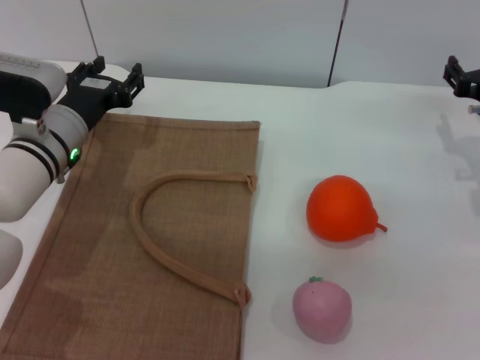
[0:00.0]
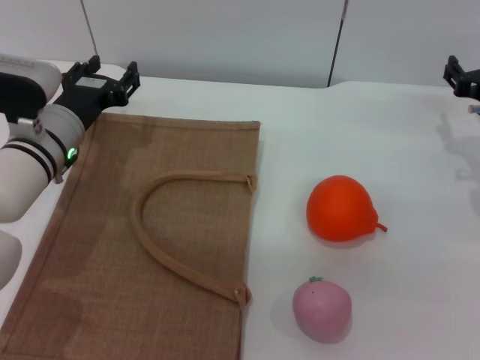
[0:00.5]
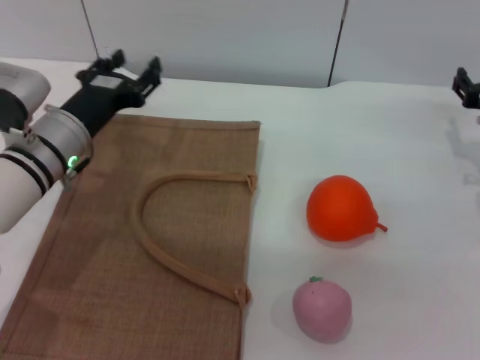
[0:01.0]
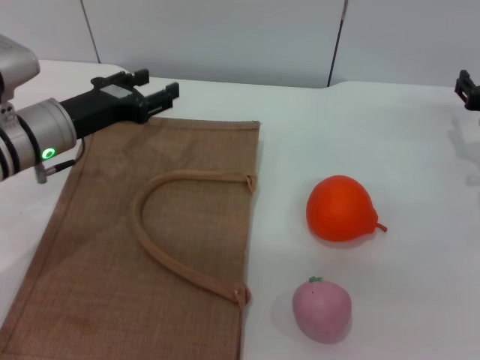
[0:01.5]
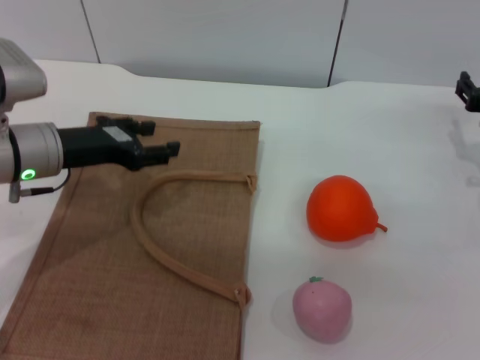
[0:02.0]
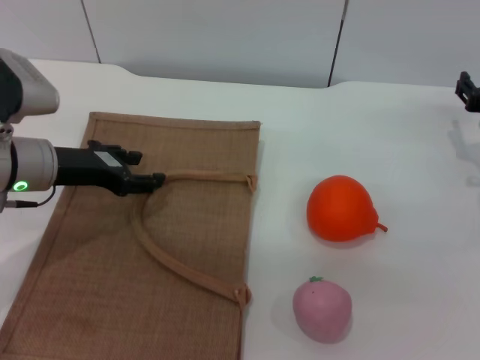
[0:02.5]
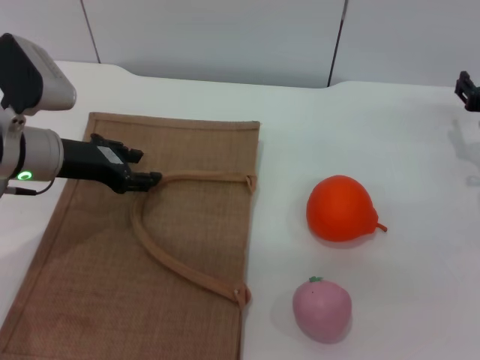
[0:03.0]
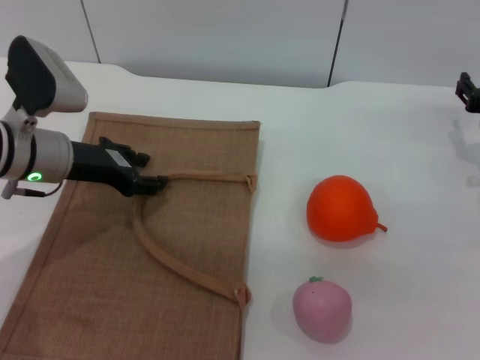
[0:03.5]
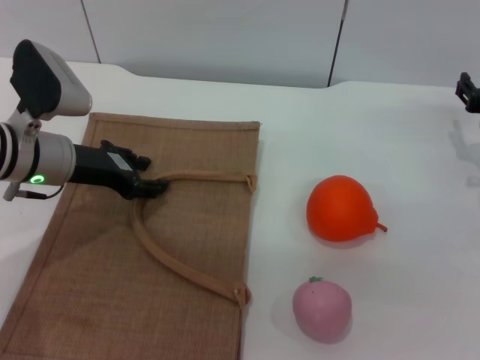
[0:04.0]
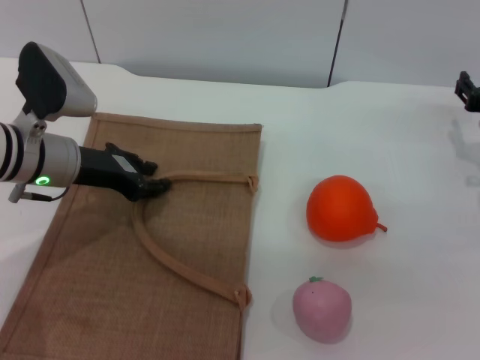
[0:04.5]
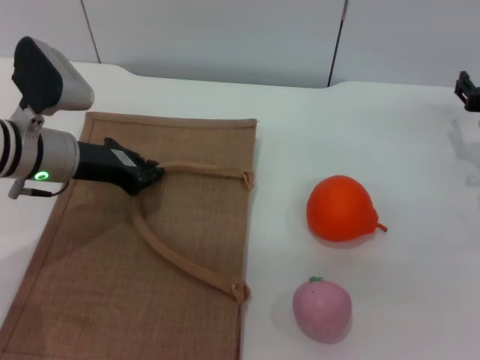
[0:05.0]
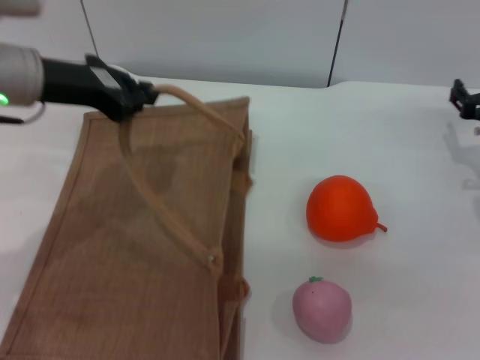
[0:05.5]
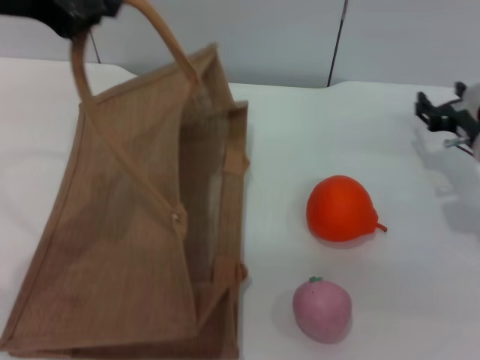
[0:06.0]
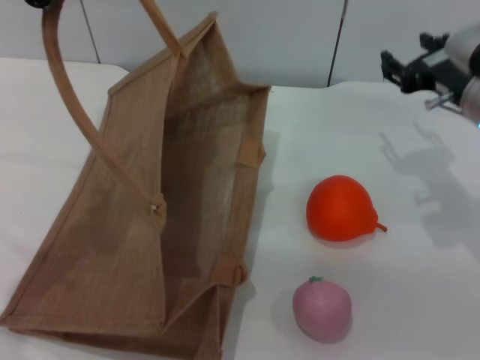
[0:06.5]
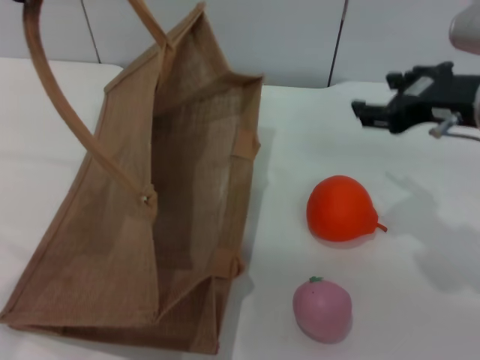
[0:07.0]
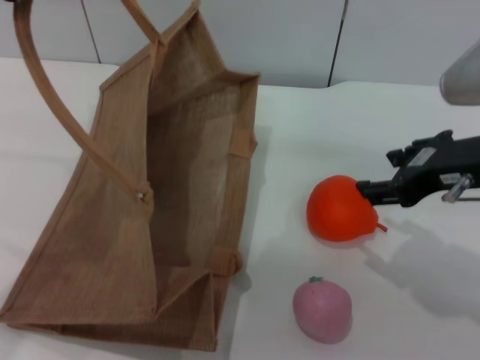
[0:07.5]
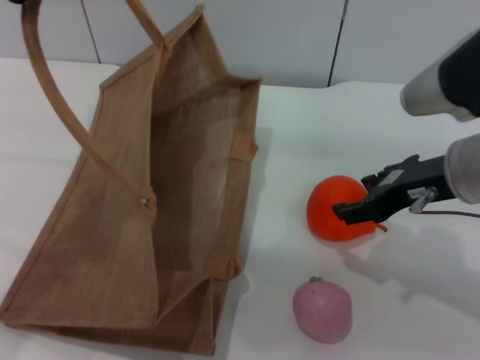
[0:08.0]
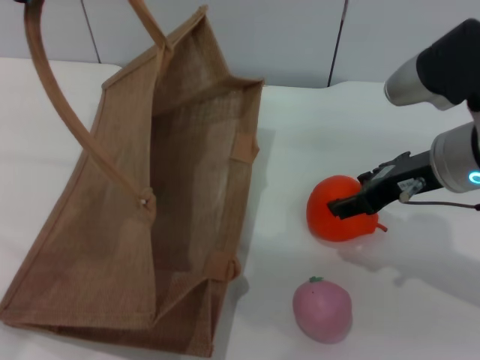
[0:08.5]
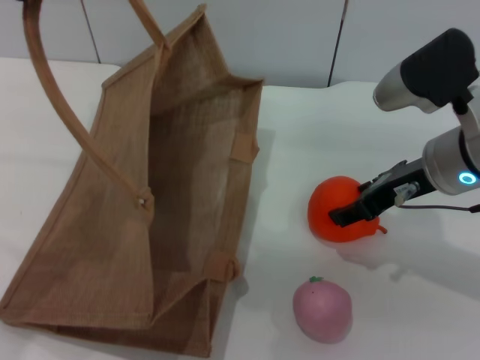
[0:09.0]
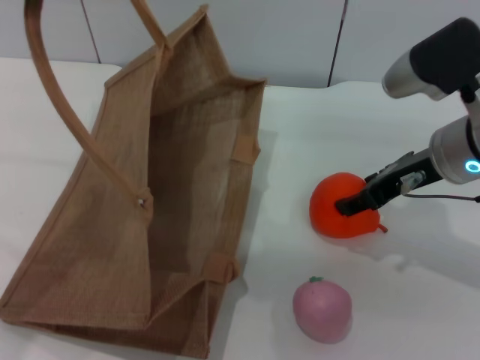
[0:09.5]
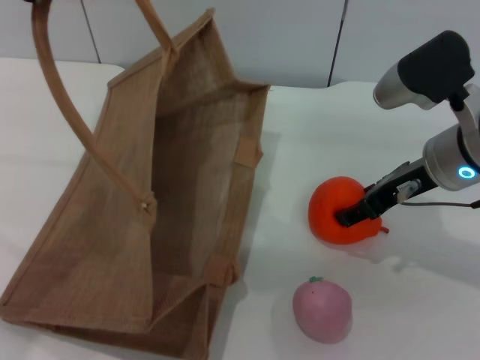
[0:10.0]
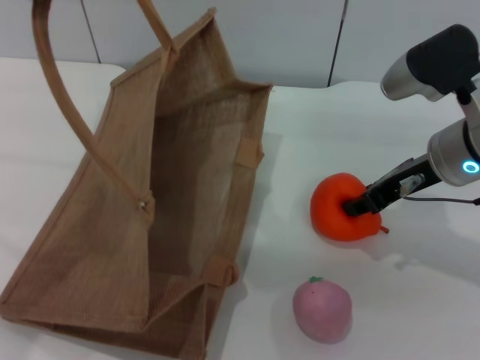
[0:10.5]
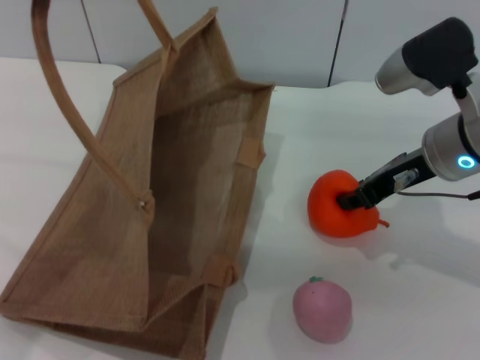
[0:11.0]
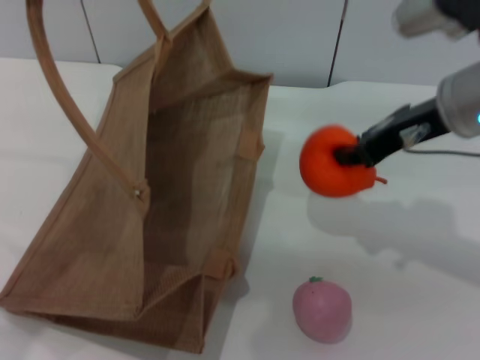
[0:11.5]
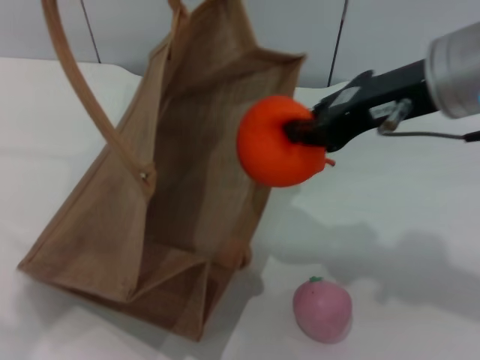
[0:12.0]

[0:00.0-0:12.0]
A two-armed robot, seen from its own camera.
Task of the whole recording: pick up the orange and peach from the table and place it in the brown handbag.
Step, 0.0 to 5.5 s: Lift the woven bag with the left gripper to open it.
Step, 6.0 to 11.0 s: Pick up the orange with the right gripper.
0.0 to 2.0 s: The left gripper moves about 5 cm.
2.0 to 4.0 s: The grippers move only a little.
4.0 to 6.0 s: The left gripper heads upward, covering about 20 cm, and closes.
6.0 to 8.0 s: The right gripper heads upward, backward and to the left, covering roughly 15 cm, while the left gripper ends up approximately 5 cm from where it was.
8.0 to 10.0 s: The right gripper shifts by some 5 cm.
10.0 to 12.0 s: The right gripper travels upward by about 10 cm, and closes its fingers.

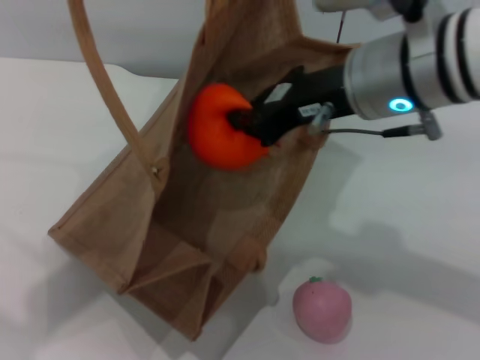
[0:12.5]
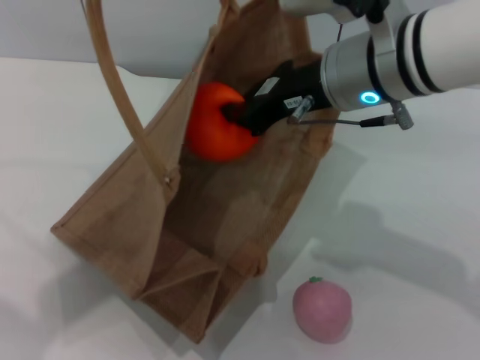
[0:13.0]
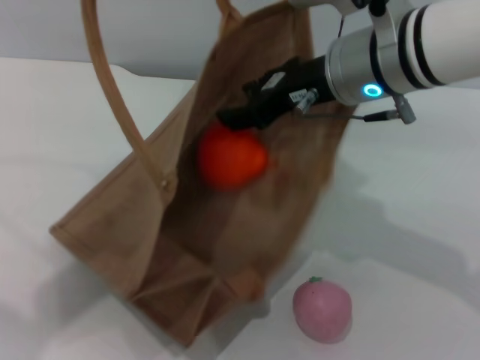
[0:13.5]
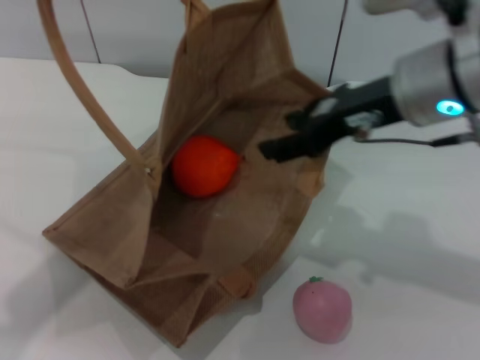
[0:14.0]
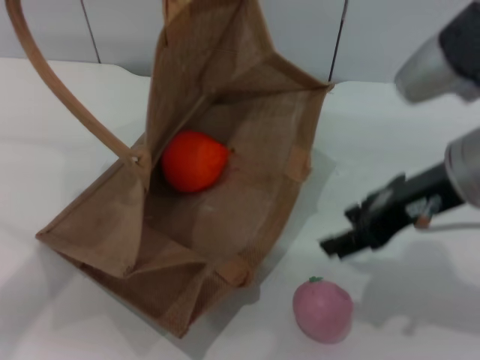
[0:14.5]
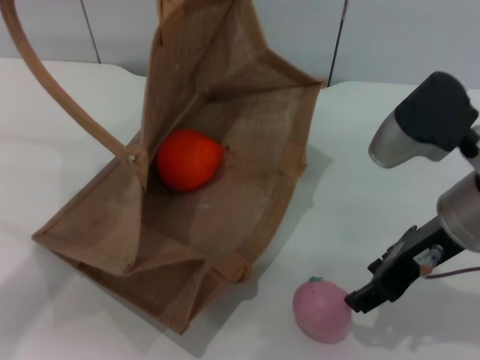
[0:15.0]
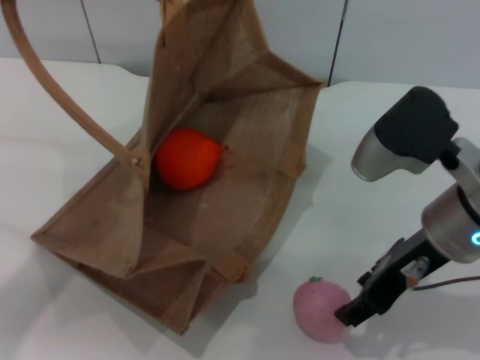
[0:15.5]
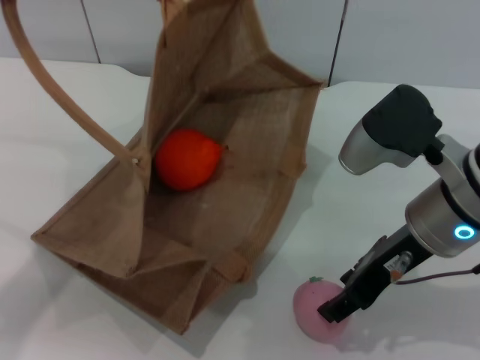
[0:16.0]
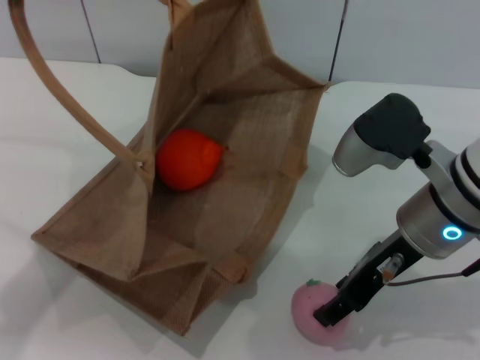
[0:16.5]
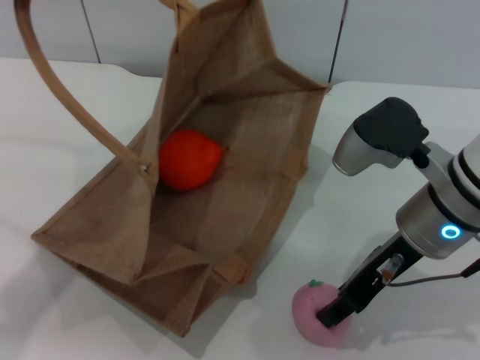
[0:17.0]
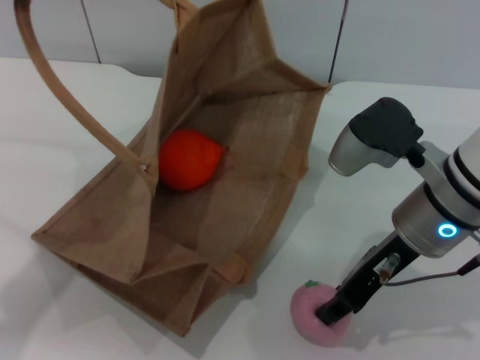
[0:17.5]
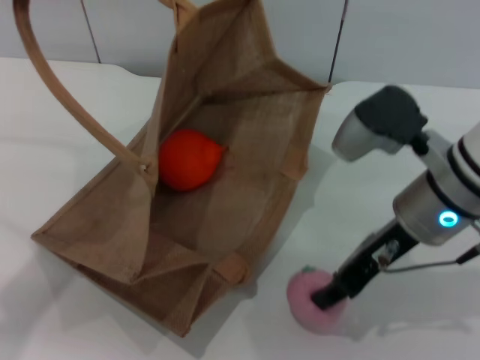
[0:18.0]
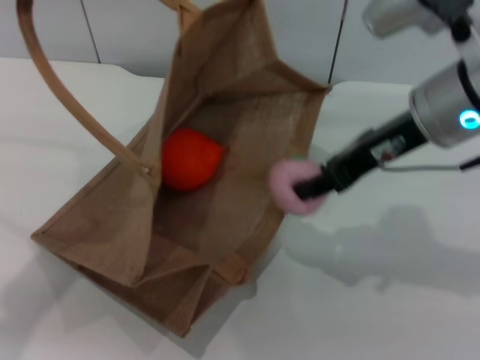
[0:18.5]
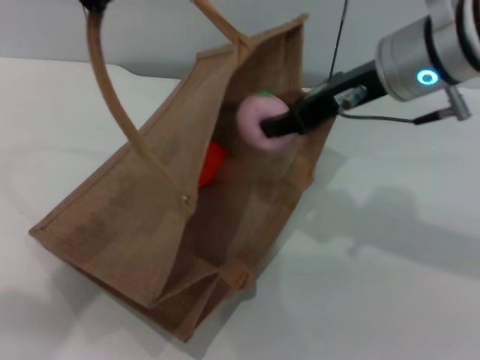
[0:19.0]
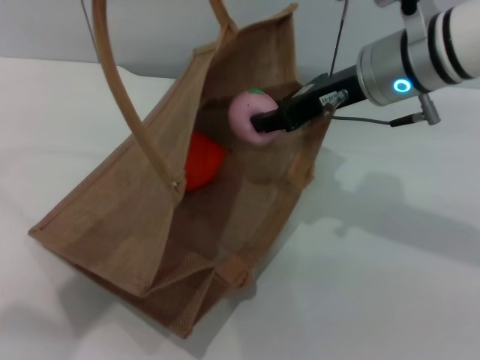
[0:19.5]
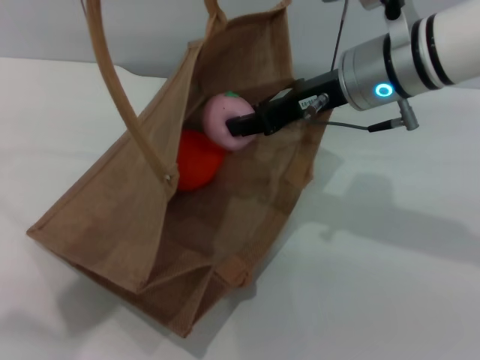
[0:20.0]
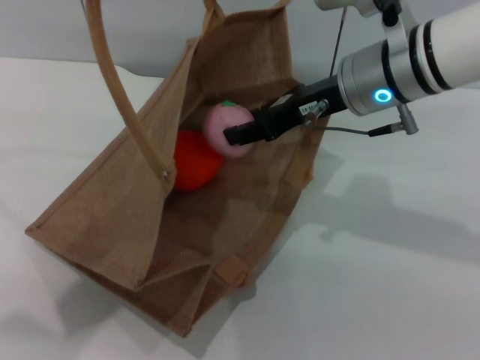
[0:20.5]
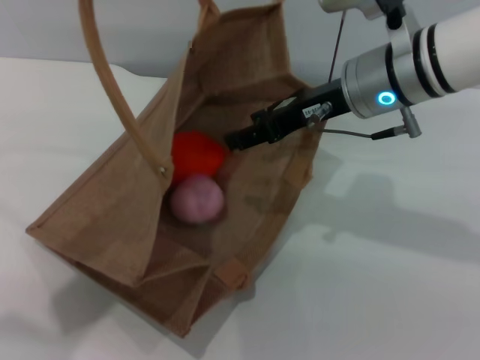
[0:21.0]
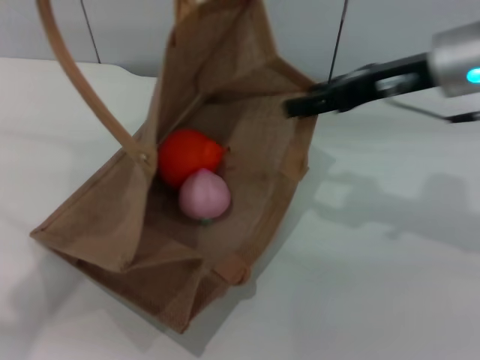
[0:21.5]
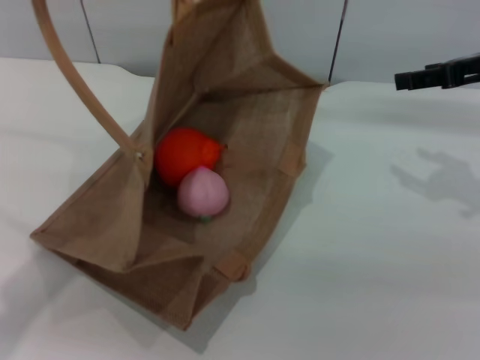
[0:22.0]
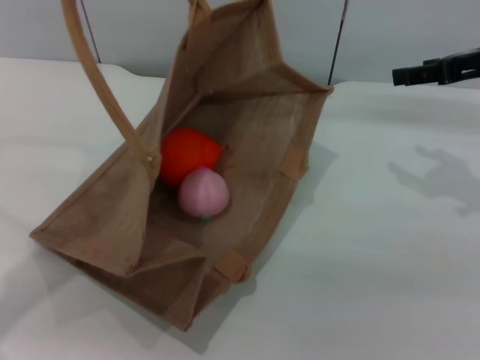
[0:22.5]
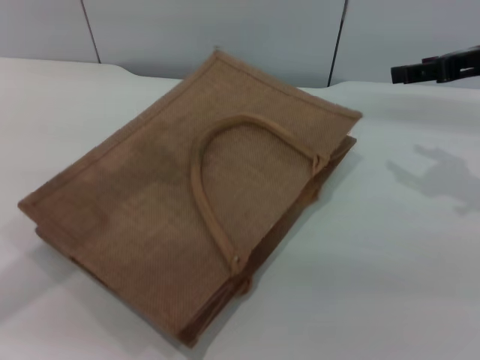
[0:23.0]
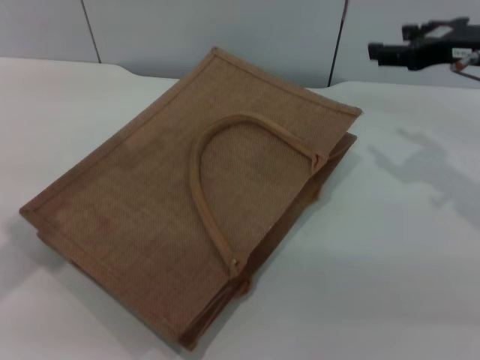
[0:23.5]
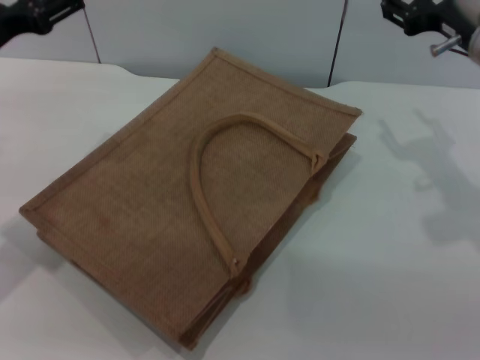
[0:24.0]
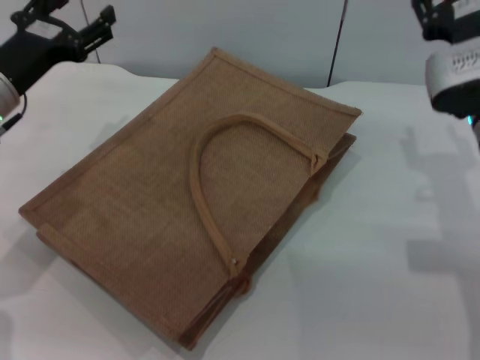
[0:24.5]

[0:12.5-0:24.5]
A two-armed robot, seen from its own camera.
Task of the whole recording: pick up the orange and peach from the table and place it in the brown handbag.
Step, 14.0 to 18.0 s: Pick up the peach with the right gripper.
Step, 18.5 to 21.0 s: Place the peach into the woven bag with the right gripper.
Step, 21.5 to 23.0 s: Lower the woven bag with the left gripper to close it.
12.5 to 14.5 s: The left gripper ends up roughly 5 cm from where it was, while the right gripper moves to the right, some 5 cm, and opens its fingers.
14.5 to 16.5 s: The right gripper shifts roughly 5 cm downward.
16.5 to 18.5 s: The right gripper goes about 10 cm upward, and closes its fingers.
18.5 to 20.5 s: The right gripper goes about 5 cm forward; the left gripper travels to the right by approximately 5 cm.
20.5 to 22.5 s: The left gripper shifts roughly 5 cm to the left, while the right gripper goes some 15 cm to the right.
22.5 to 24.5 s: The right gripper moves to the left and downward, some 10 cm. The left gripper goes roughly 20 cm downward, and opens up.

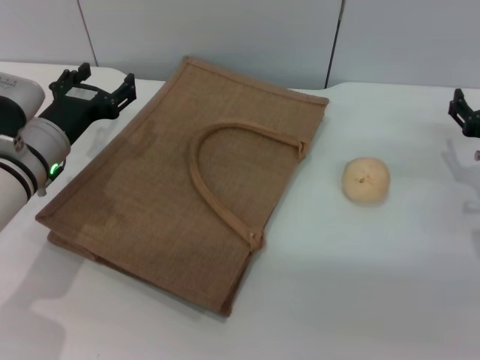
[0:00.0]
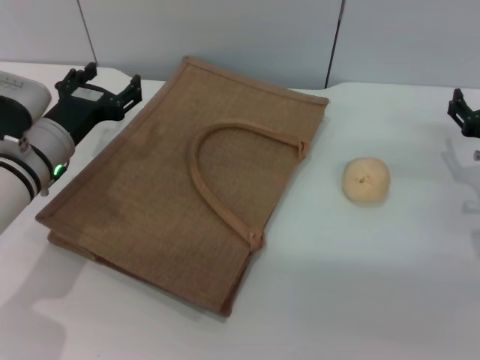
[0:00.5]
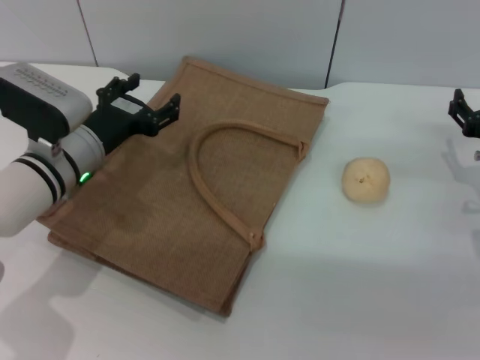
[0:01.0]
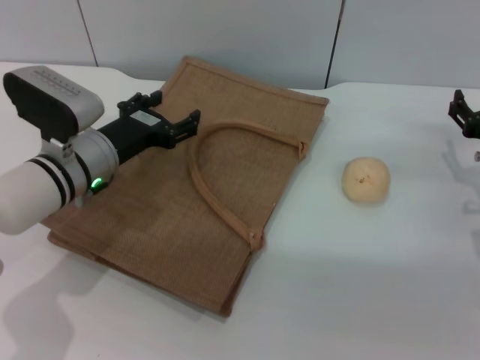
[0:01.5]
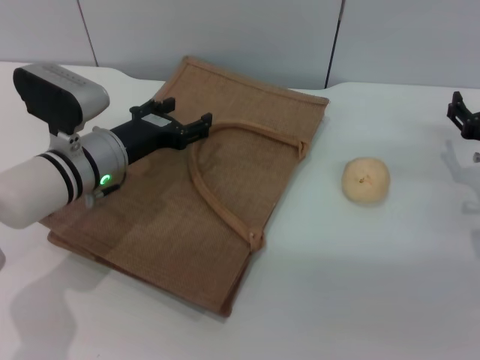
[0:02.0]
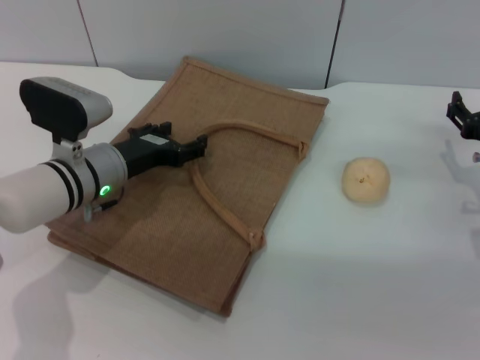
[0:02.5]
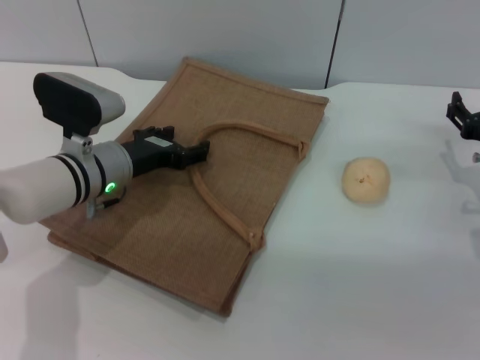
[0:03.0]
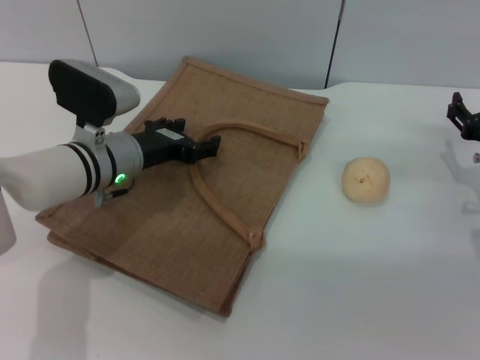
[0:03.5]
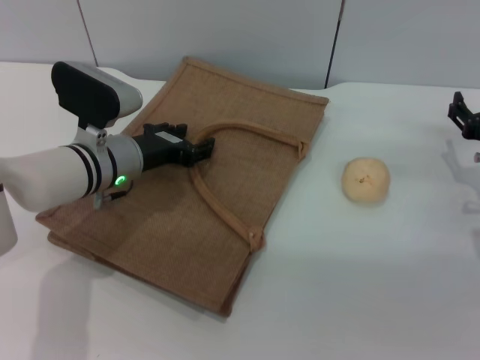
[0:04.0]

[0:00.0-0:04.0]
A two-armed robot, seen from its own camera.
Task of the whole recording: pick up the egg yolk pastry from the table and place it in the brown handbag.
2.0 to 4.0 s: There are only small adjustments of the grippers.
